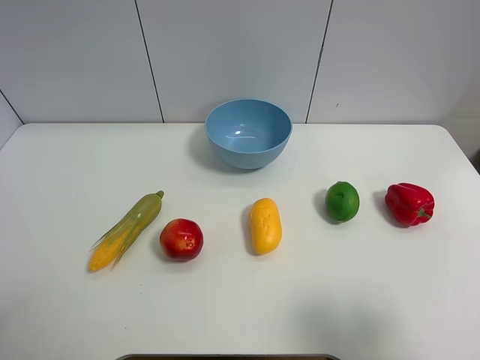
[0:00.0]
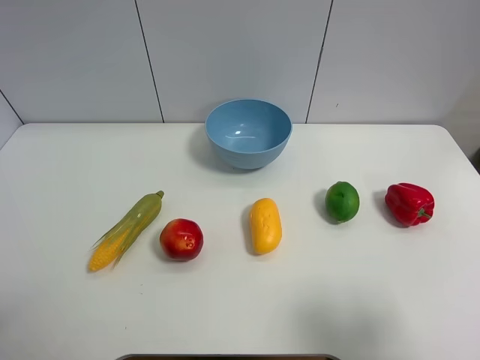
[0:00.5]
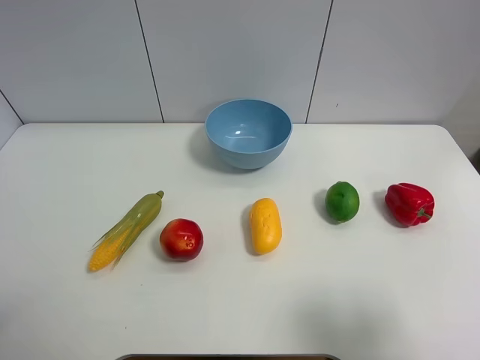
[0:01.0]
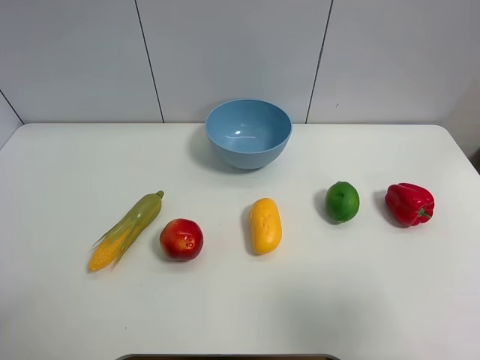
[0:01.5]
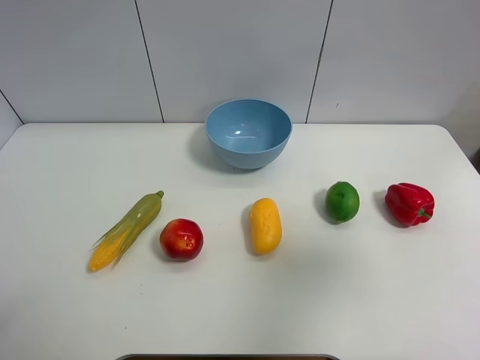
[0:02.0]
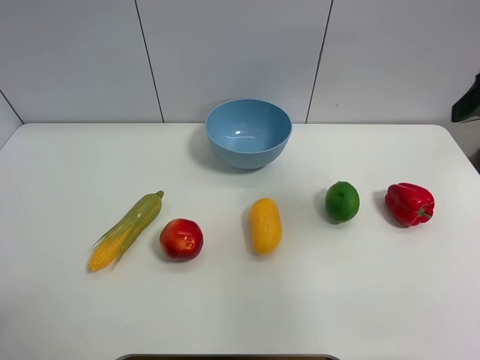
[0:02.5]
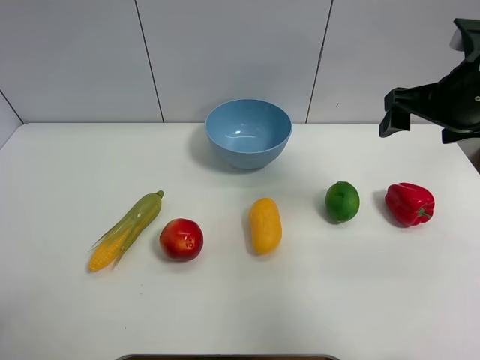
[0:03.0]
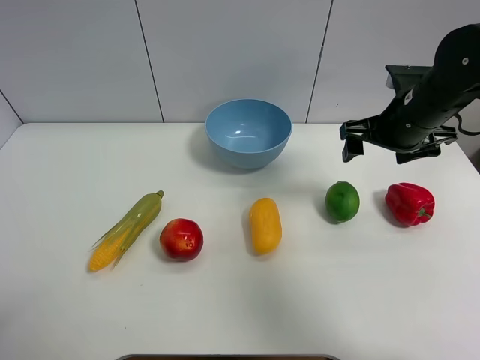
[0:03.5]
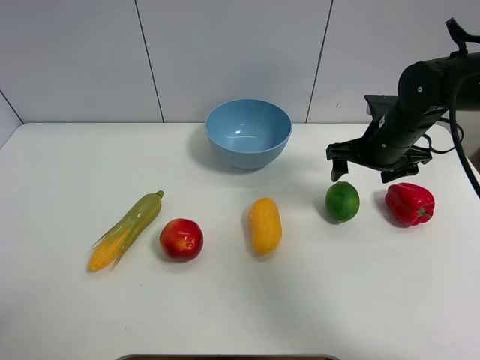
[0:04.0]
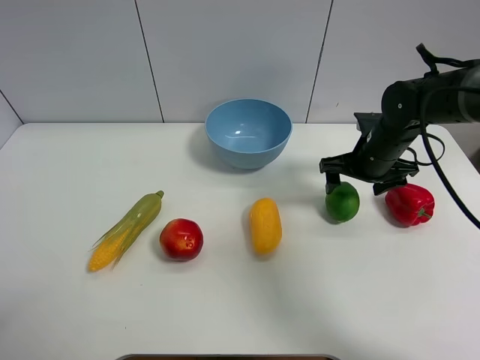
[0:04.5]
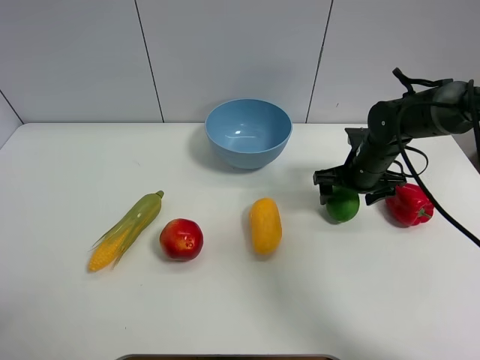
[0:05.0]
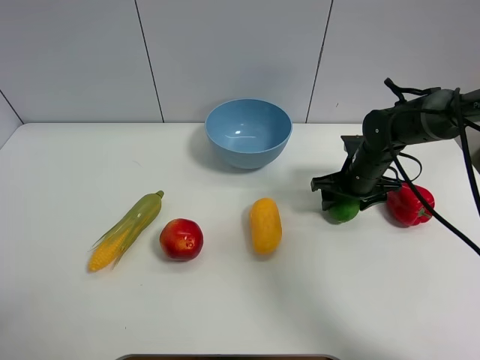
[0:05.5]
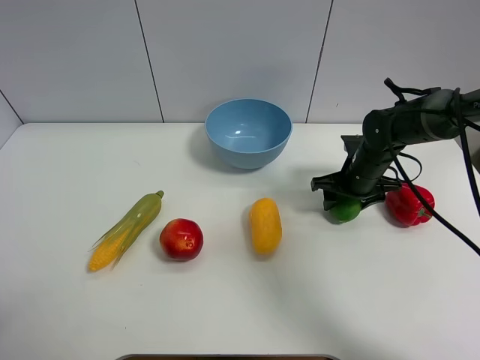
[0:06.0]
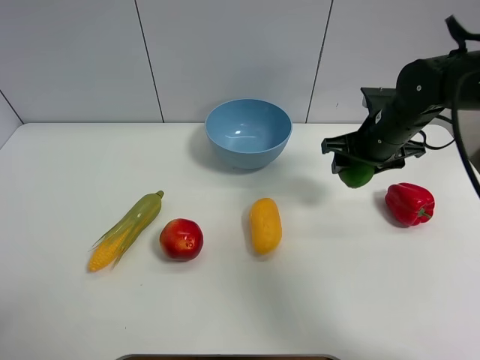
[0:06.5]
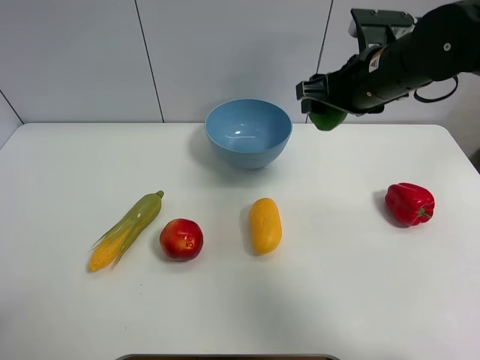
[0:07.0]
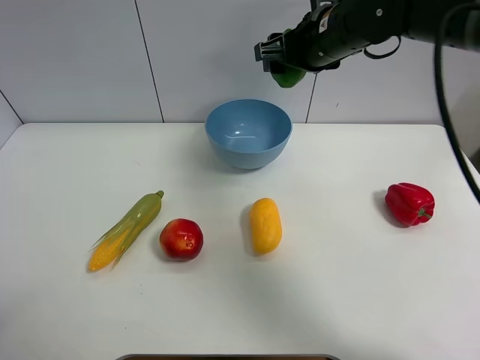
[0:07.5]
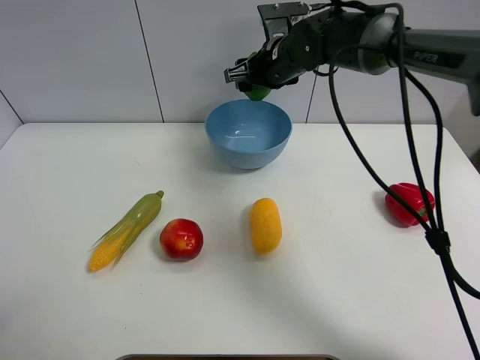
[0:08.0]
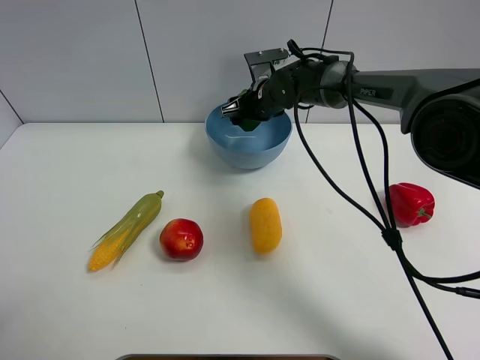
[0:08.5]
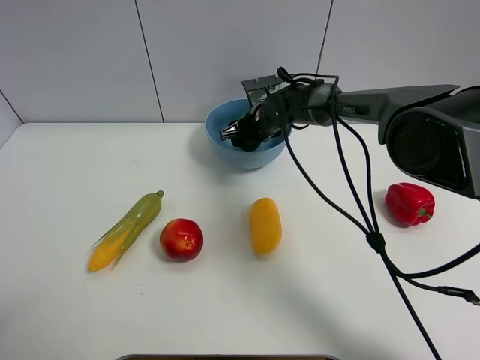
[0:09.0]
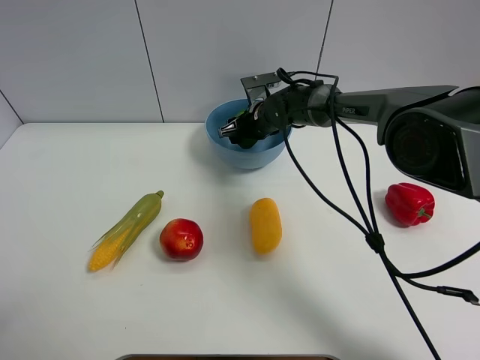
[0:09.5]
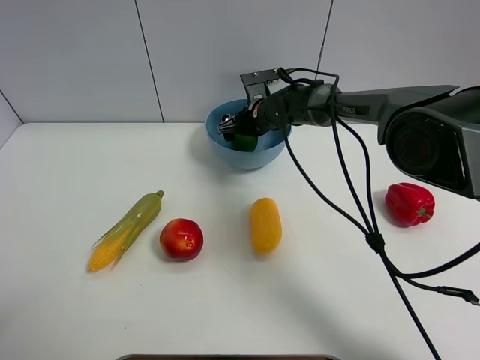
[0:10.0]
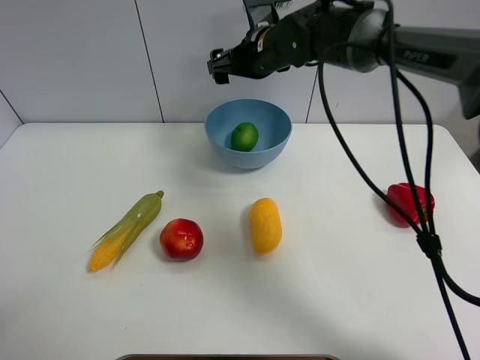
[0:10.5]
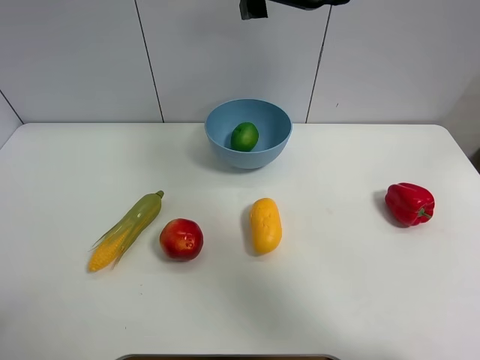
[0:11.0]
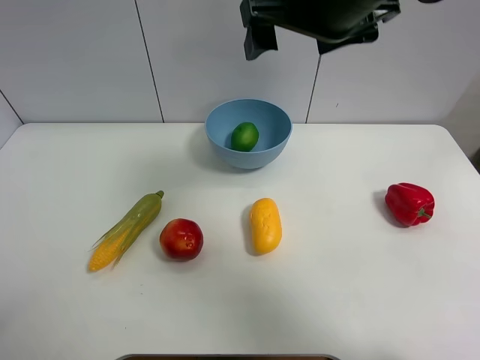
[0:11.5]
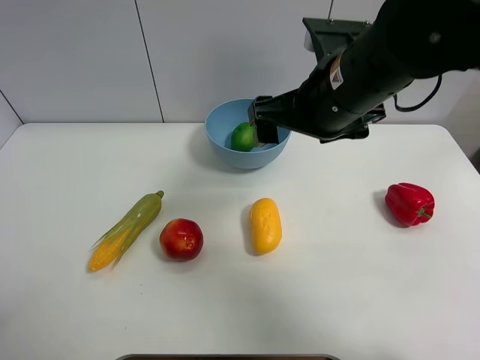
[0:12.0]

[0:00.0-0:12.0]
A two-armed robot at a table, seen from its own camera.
Task of the whole recording: Put the three fruits on the table into a bowl.
Step, 0:00.0 to 0:05.5: Grasp the green lemon with right gripper.
Step, 0:06.0 to 0:10.0: Place the green lemon in the blue bowl with right gripper.
0:00.0 to 0:02.0: The right gripper travels forward and upward by approximately 15 cm.
0:02.0 to 0:04.0: The right gripper shifts about 30 cm forward and downward.
0:04.0 to 0:06.0: The right gripper moves downward, about 10 cm, and closes up.
0:06.0 to 0:08.0: The right gripper heads to the left, upward and forward, covering roughly 20 cm.
0:08.0 to 0:10.0: The right gripper shifts roughly 10 cm downward, and opens up.
0:10.0 to 0:12.0: The right gripper goes some 30 cm backward and upward.

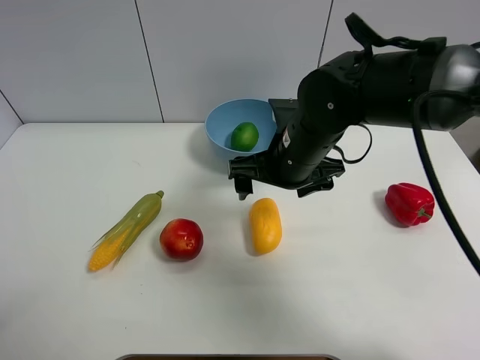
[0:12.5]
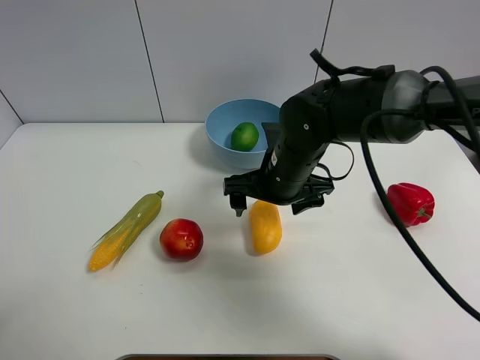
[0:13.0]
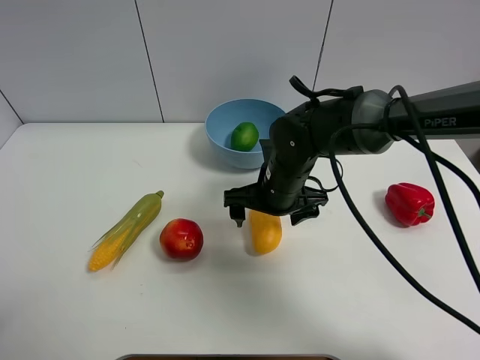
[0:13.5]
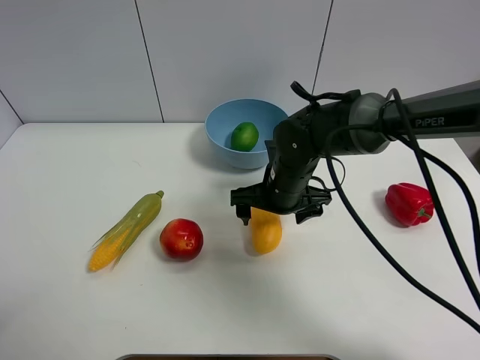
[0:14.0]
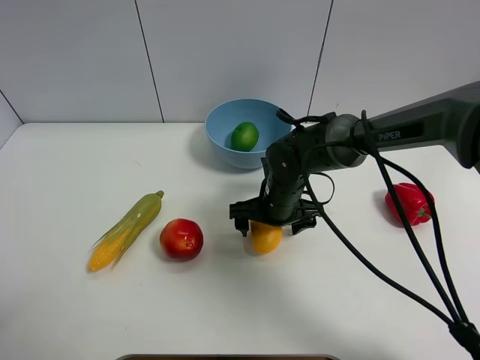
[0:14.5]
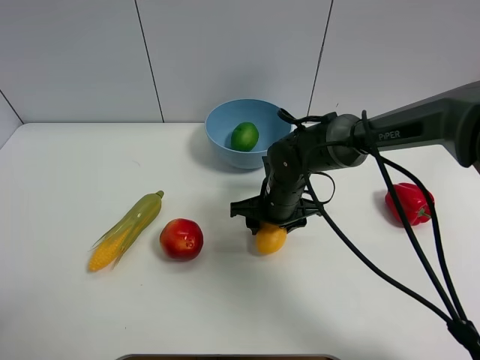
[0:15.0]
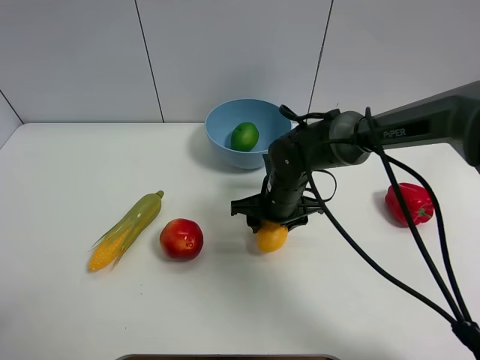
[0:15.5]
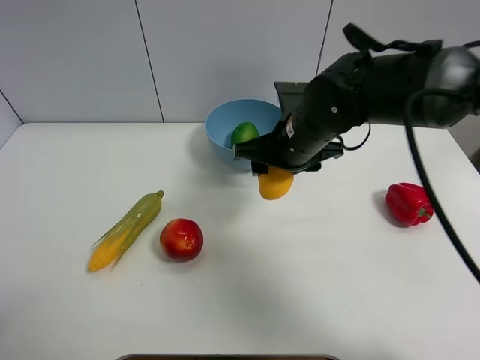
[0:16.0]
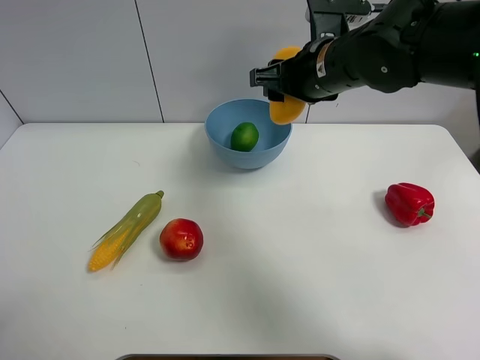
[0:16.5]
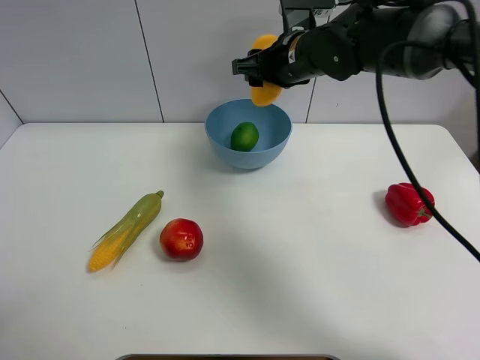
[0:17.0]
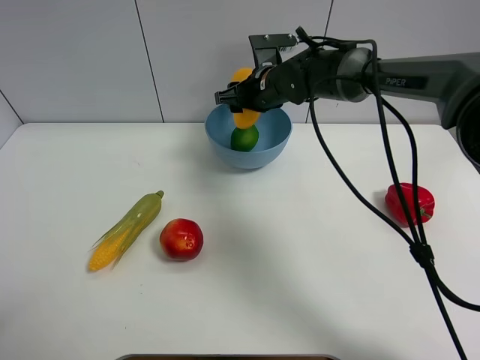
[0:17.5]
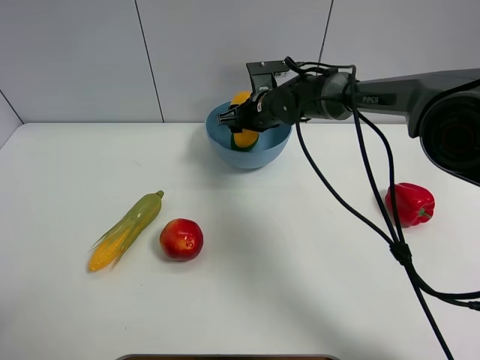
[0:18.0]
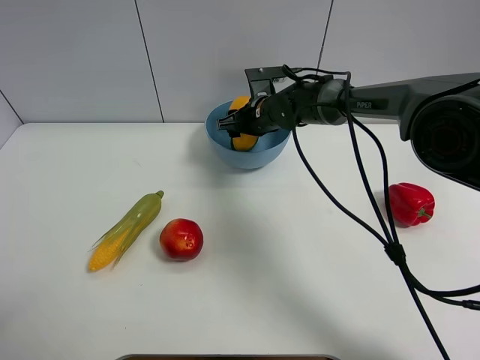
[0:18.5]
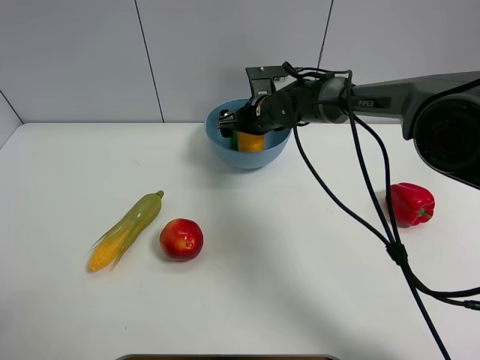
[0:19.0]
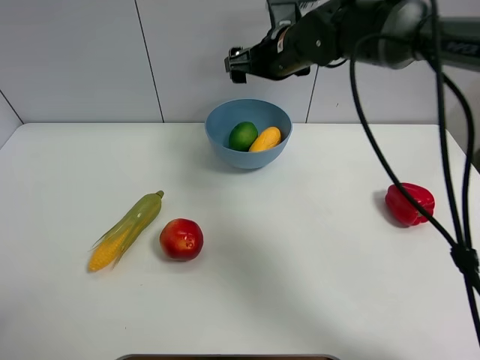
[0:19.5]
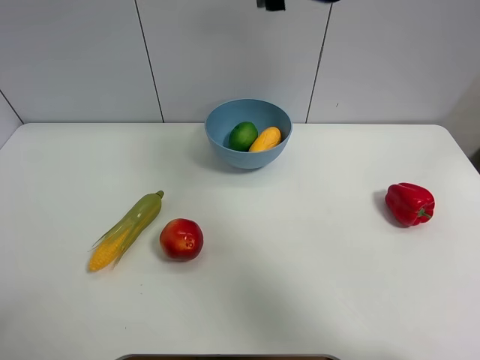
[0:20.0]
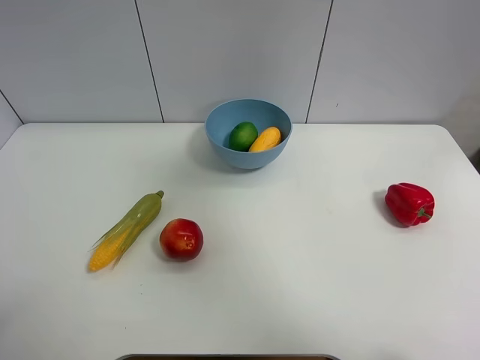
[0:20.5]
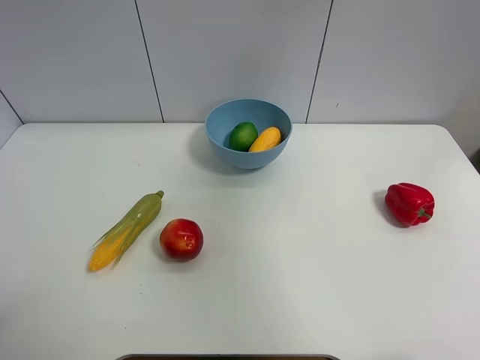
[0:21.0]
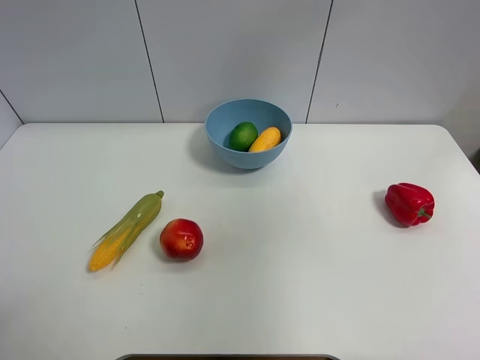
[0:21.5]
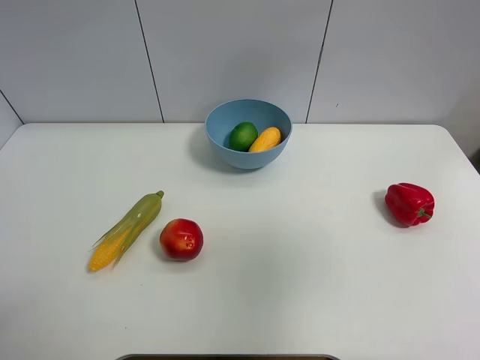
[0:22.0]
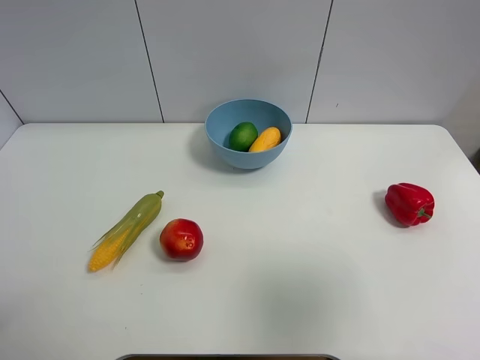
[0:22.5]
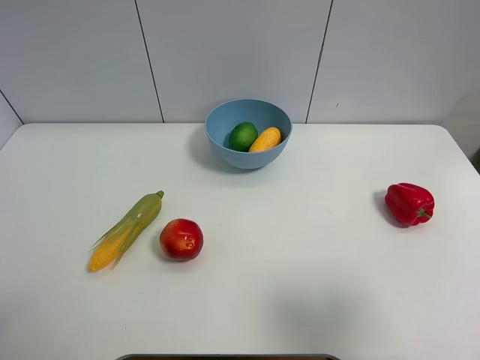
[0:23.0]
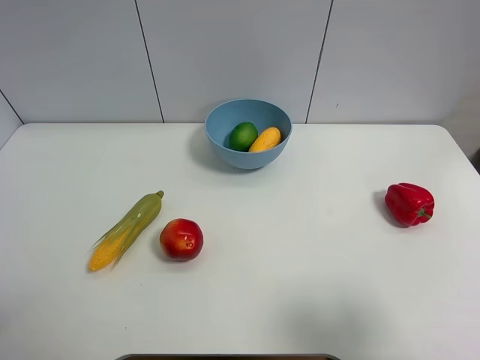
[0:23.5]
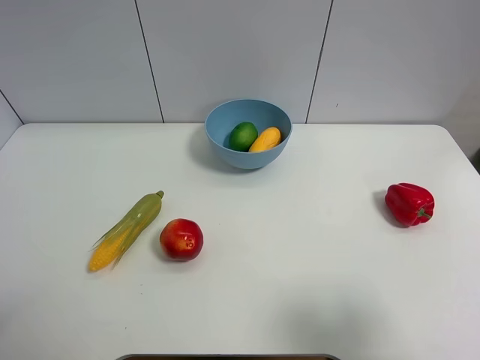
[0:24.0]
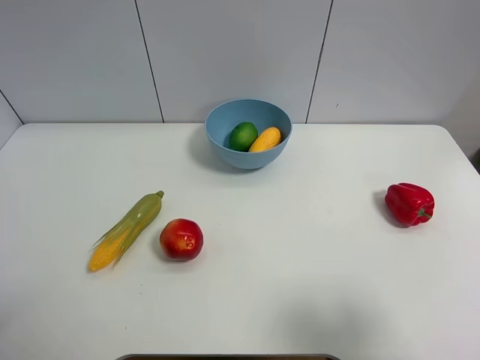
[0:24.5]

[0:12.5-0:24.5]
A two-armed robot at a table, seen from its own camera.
Task of the whole recording: Put the three fruits on the table into a bowl.
Step, 0:12.5 to 0:15.0: Grasp the mango with right gripper.
Step, 0:15.5 to 0:19.0: Place the mango in the blue bowl with right gripper.
0:12.5 to 0:14.5: The right gripper moves downward, roughly 10 cm.
0:14.5 to 0:16.5: The right gripper heads upward, covering approximately 20 cm, and closes its fingers.
0:16.5 to 0:18.5: The right gripper shifts some 20 cm downward and forward.
0:18.5 to 0:20.5: The right gripper goes some 50 cm upward and backward, and opens its fingers.
0:20.5 to 0:22.5: The right gripper heads backward, downward and to the right, covering approximately 25 cm.
0:22.5 to 0:24.5: The right gripper goes about 10 cm downward.

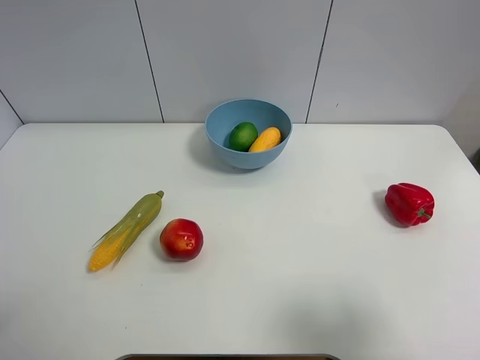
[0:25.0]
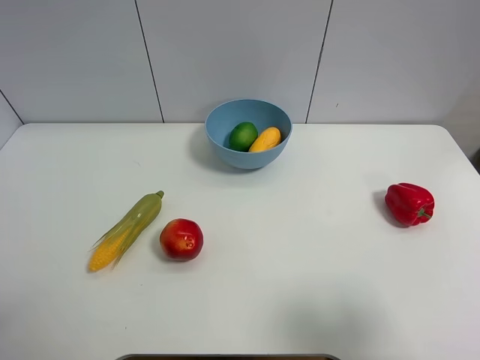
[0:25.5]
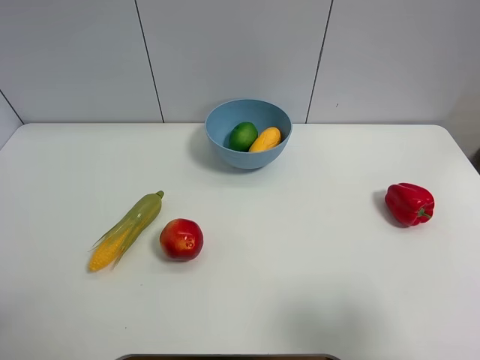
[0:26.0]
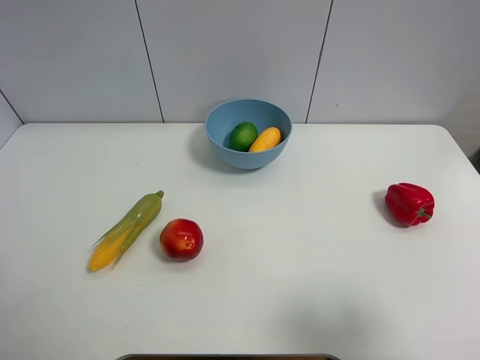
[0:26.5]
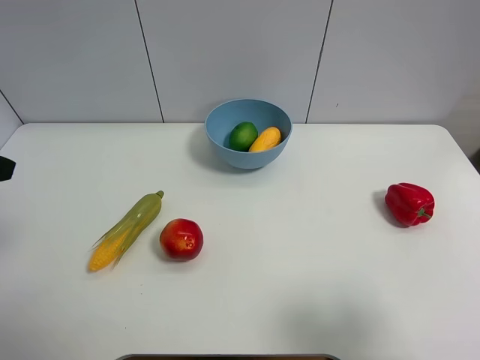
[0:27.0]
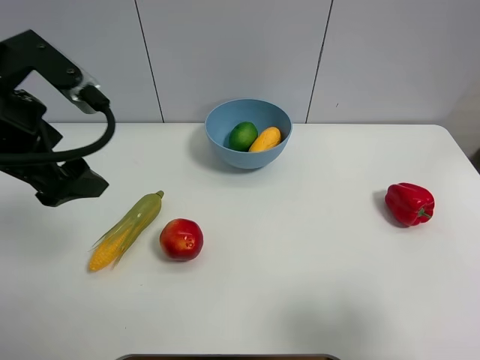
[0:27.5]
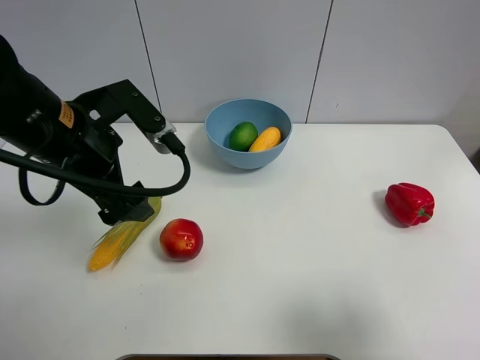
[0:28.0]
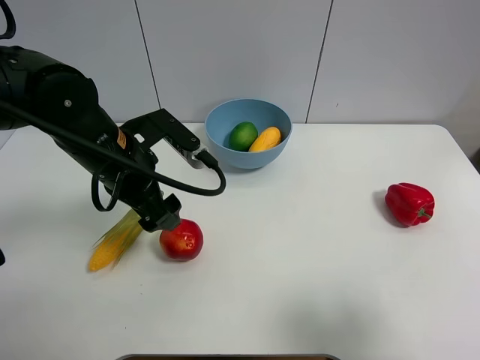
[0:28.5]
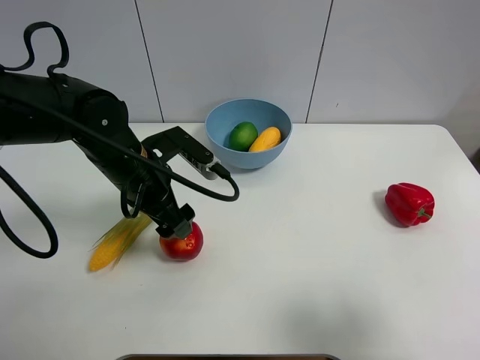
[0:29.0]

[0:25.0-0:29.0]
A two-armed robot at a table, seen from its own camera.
Task of the whole recording: Put the three fruits on the table into a bowl.
0:27.0 to 0:29.0: The left gripper is displaced to the right, downward and forward by roughly 25 cm.
